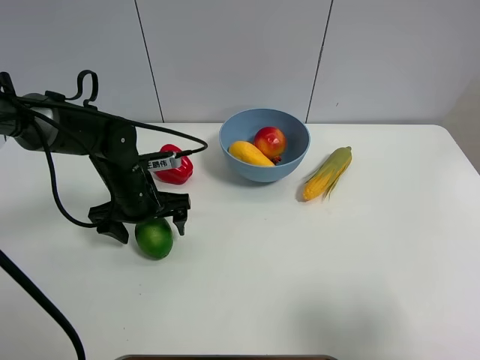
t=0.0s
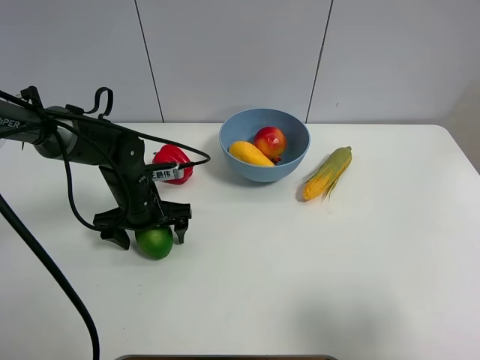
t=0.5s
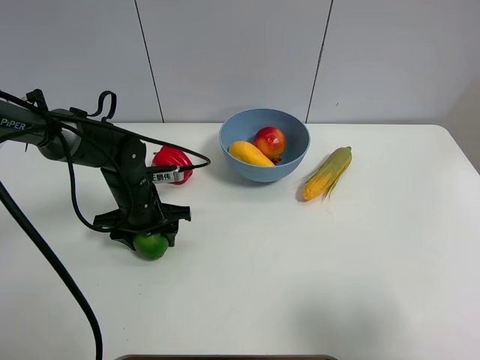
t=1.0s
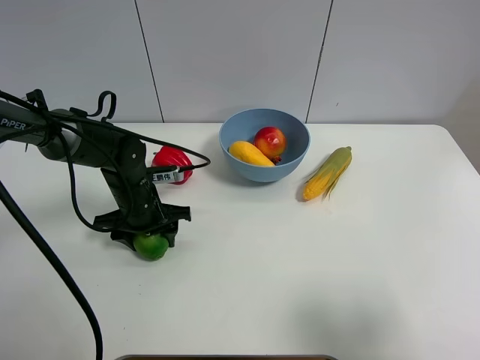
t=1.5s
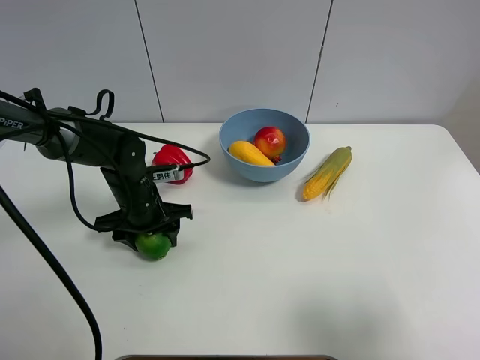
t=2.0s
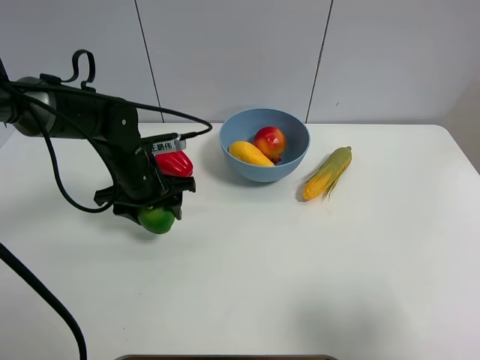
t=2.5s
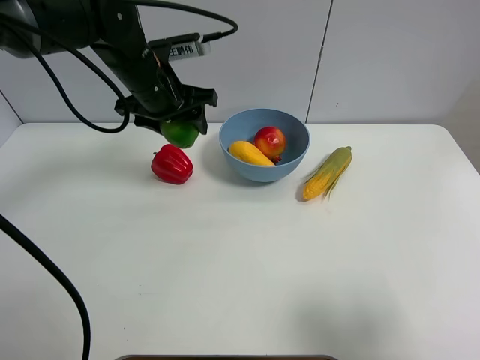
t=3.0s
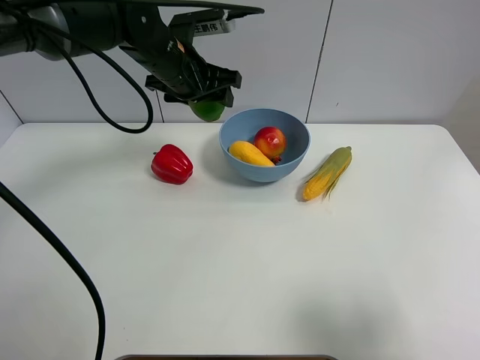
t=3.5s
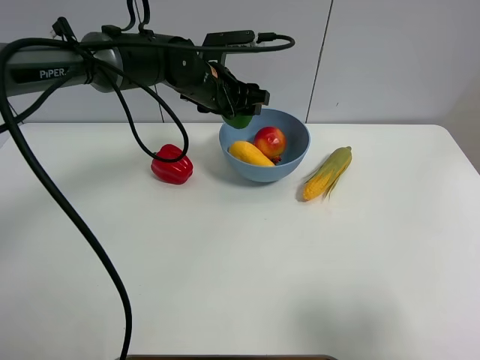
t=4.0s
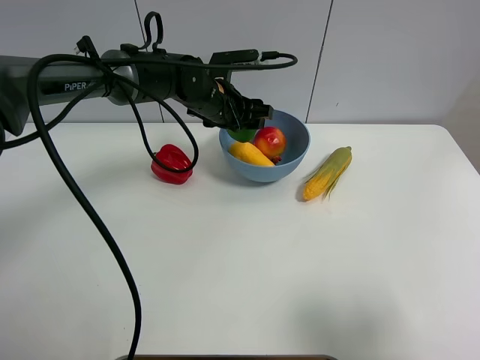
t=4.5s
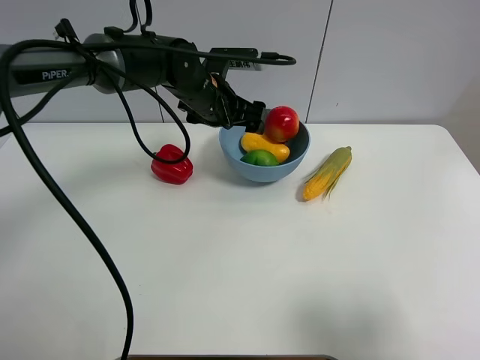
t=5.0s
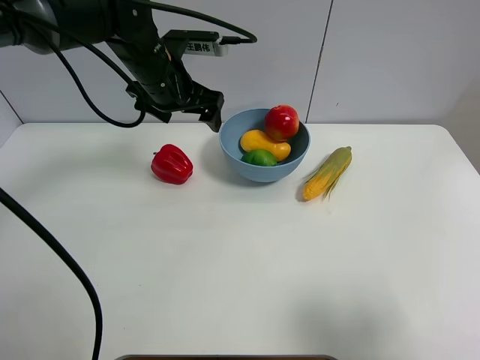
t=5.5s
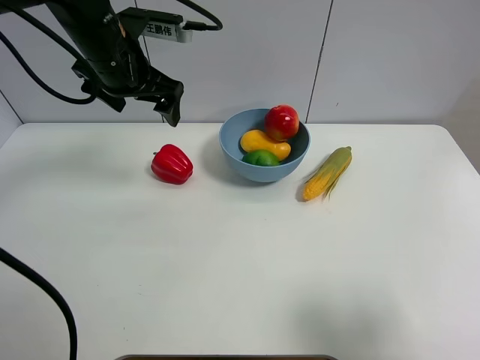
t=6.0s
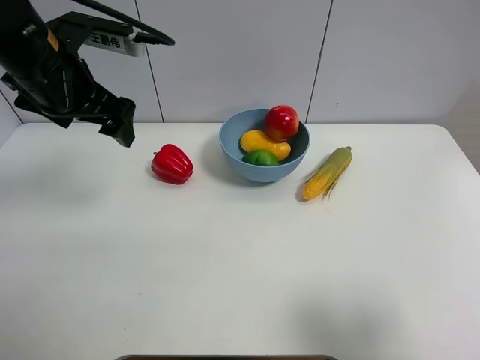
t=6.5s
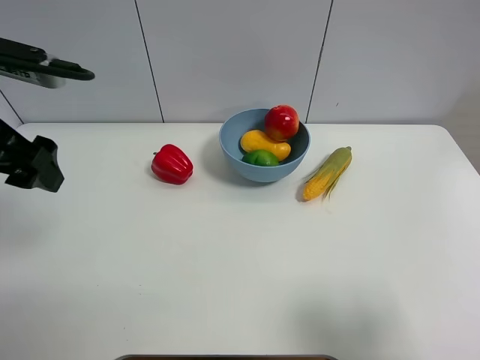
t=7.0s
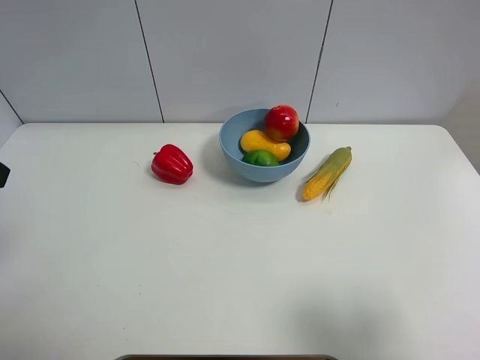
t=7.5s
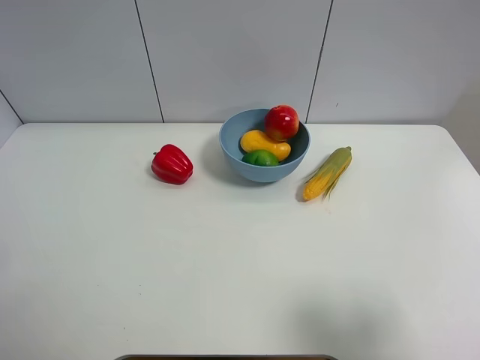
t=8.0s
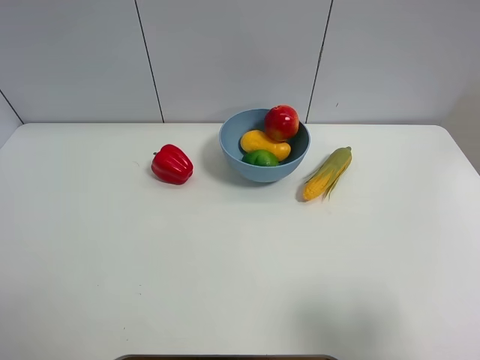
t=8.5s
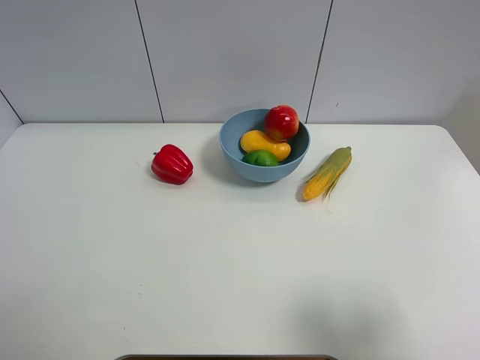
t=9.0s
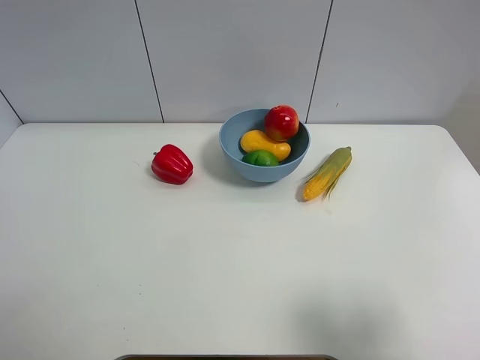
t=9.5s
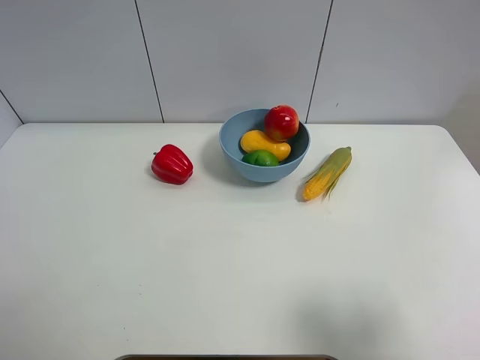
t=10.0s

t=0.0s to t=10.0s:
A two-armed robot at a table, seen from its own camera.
Task of the whole recording: Put the three fruits on the table into a bowl.
Step, t=1.5s to t=4.5s: Place the green lemon in the blue bowl with left gripper.
t=0.0s to t=2.0s: The left gripper closes its fingers.
t=2.0s to t=4.0s: The left gripper shifts roughly 20 cm upward, to the right and forward.
t=4.0s to t=6.0s: The left gripper goes some 15 cm to the left, upward and backward, and opens its fingers.
t=6.0s to t=8.0s: The left gripper heads backward and to the left, covering about 30 cm.
